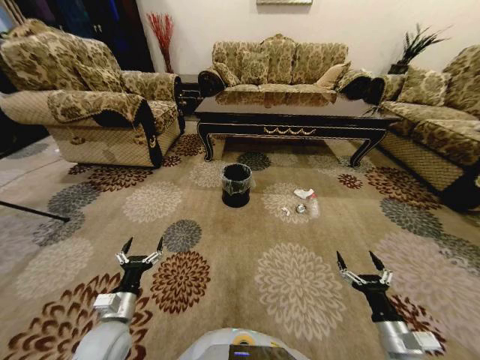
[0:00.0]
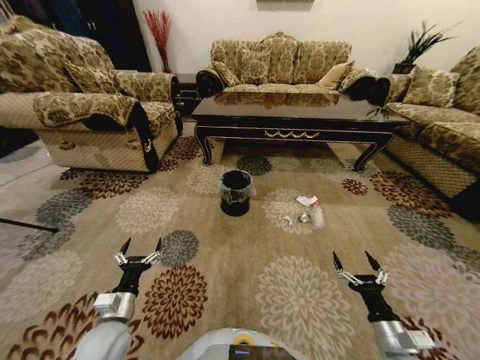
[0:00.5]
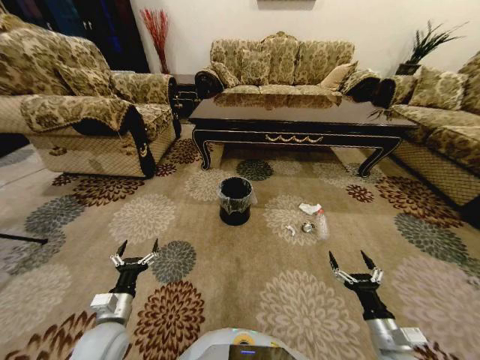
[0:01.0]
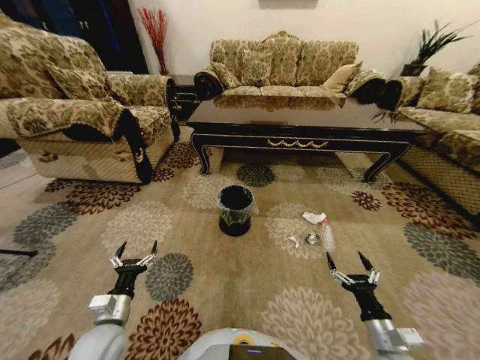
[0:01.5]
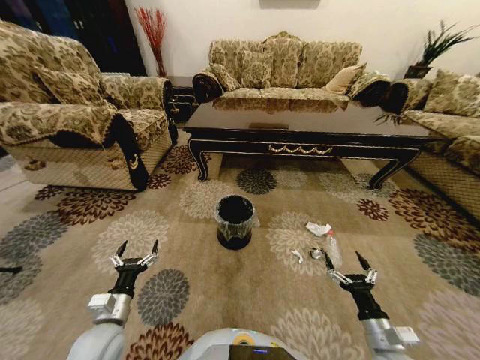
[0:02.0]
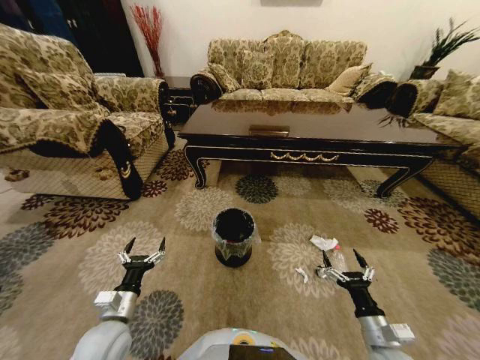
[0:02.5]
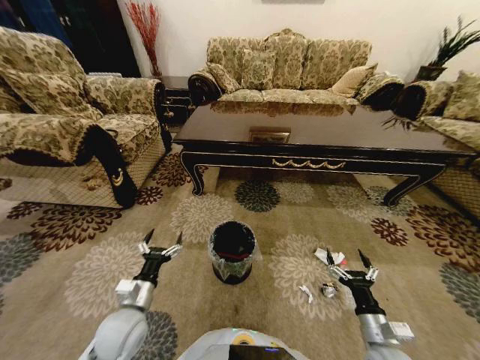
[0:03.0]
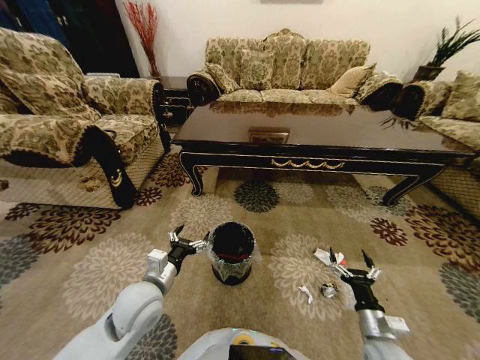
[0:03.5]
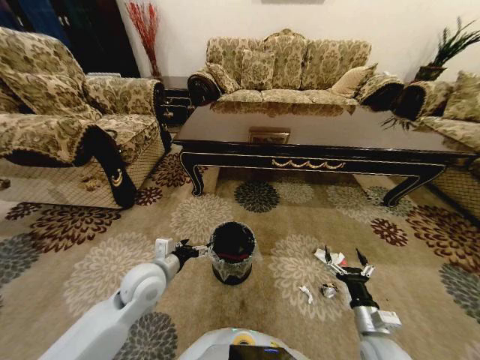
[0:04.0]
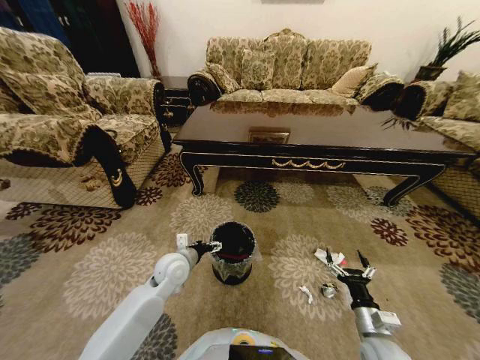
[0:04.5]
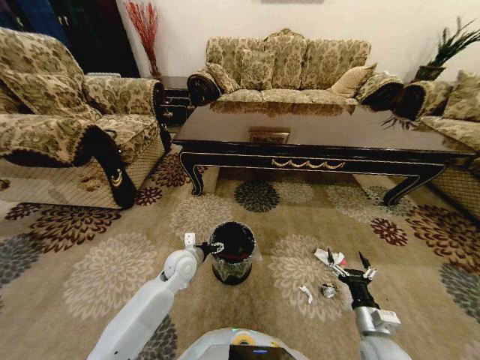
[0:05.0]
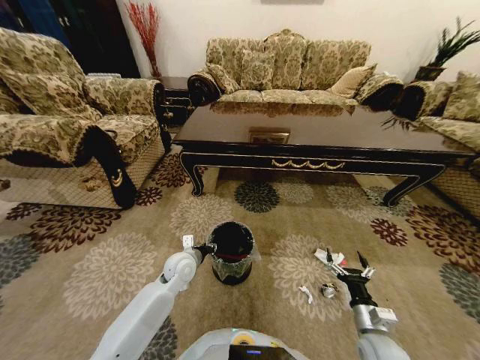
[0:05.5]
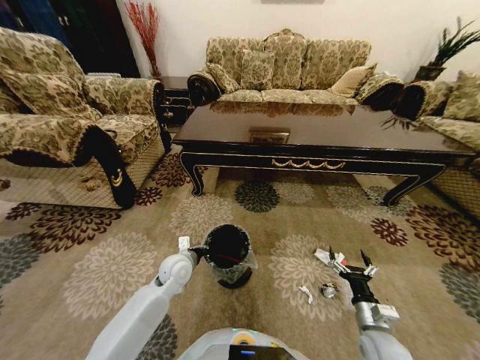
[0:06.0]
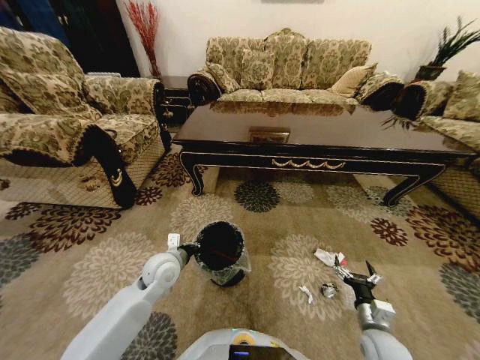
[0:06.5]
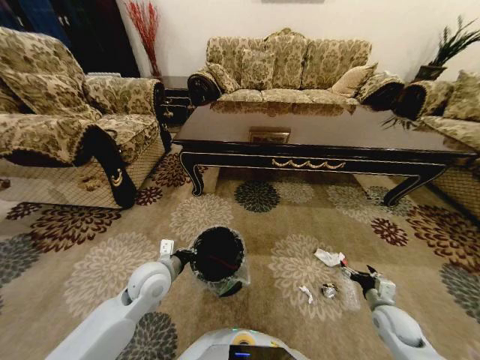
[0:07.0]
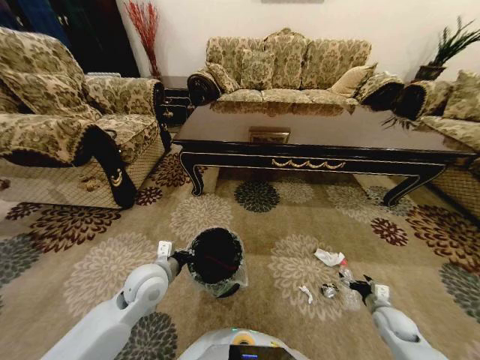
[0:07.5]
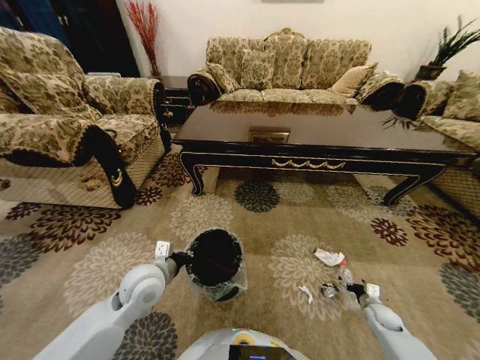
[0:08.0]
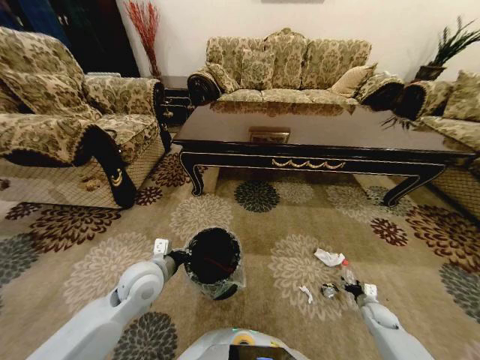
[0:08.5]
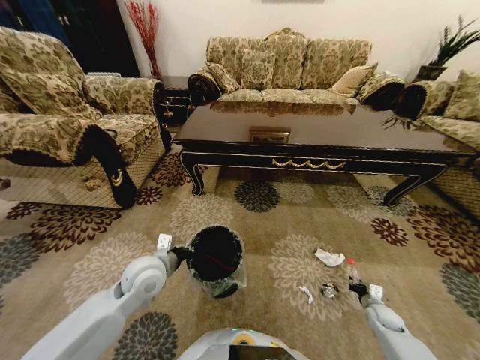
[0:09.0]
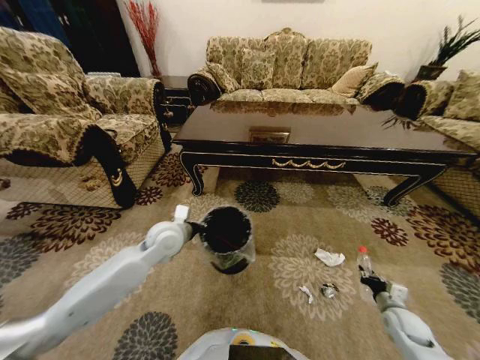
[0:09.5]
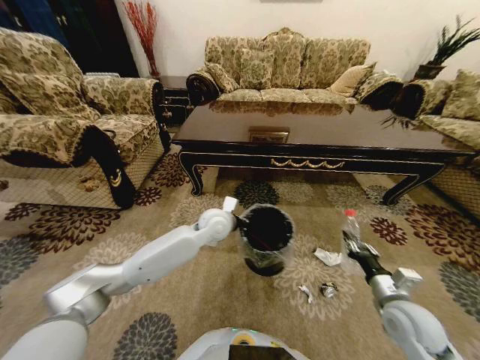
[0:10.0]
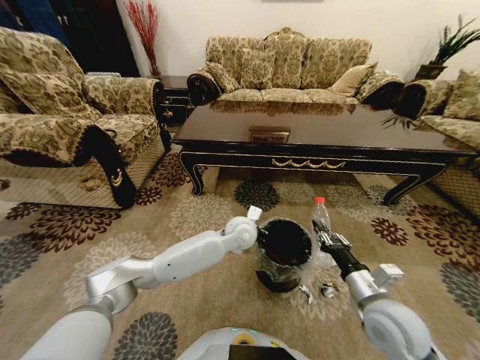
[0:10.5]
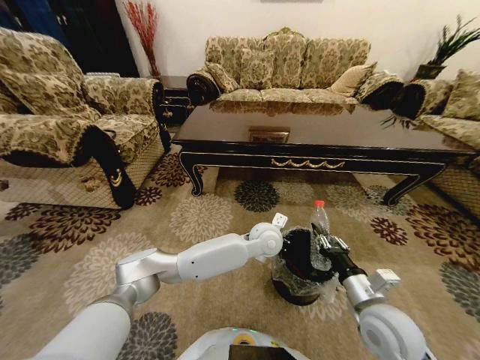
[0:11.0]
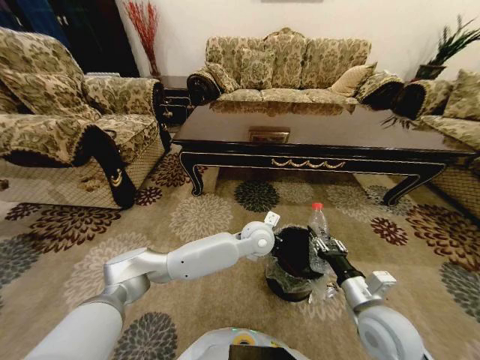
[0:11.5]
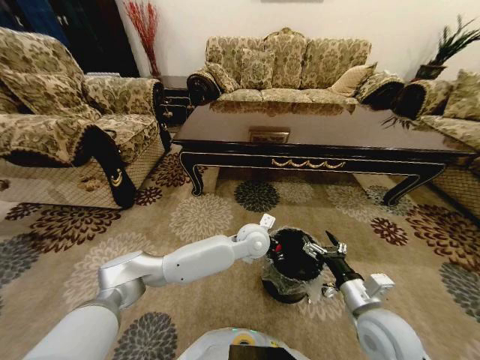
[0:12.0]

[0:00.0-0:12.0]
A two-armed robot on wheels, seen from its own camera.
Task of the whole recording: Move to the front of the table and pick up the trash from the floor, then place it into the trash bin.
2.0 to 4.0 s: The left gripper heads forward, upward and to the right, covering approximately 15 cm.
4.0 to 6.0 s: The left gripper shifts some 10 cm downward and forward, and closes up.
6.0 to 8.0 s: The left gripper shifts about 10 cm upward and backward, while the right gripper is displaced to the right, downward and forward by approximately 20 cm.
8.0 to 10.0 s: The left gripper is displaced forward and to the right by some 20 cm, while the right gripper heads upward and to the left, covering roughly 25 cm, and closes up.
10.0 to 12.0 s: The right gripper travels to the left by about 10 cm, and opens up, while the left gripper heads to the right, covering some 10 cm.

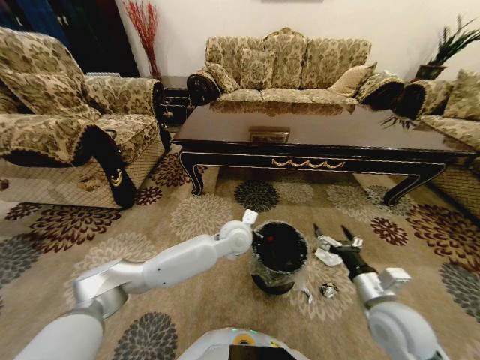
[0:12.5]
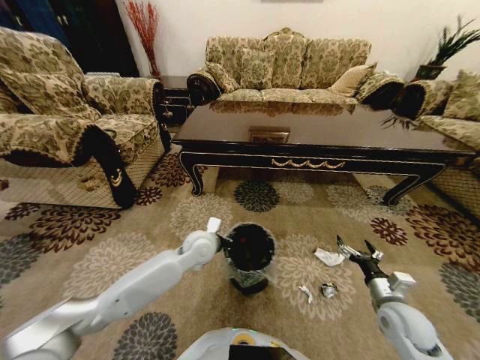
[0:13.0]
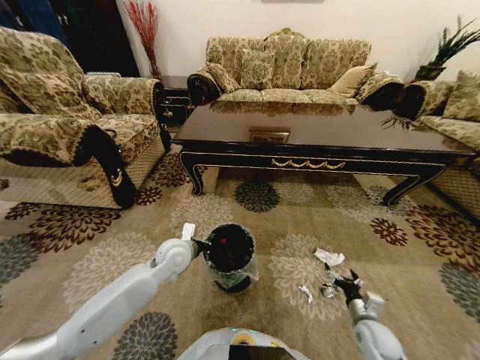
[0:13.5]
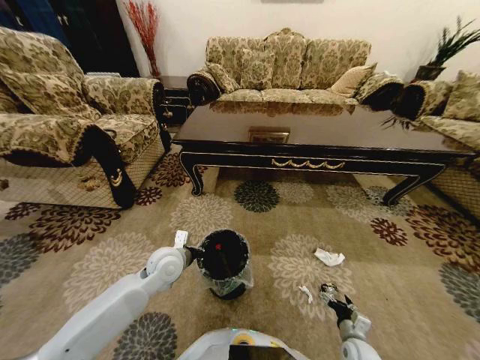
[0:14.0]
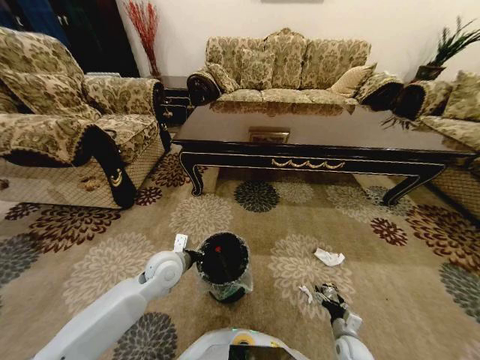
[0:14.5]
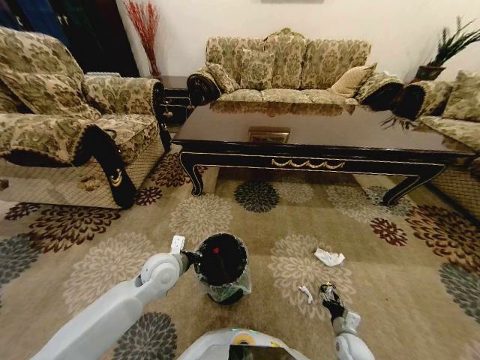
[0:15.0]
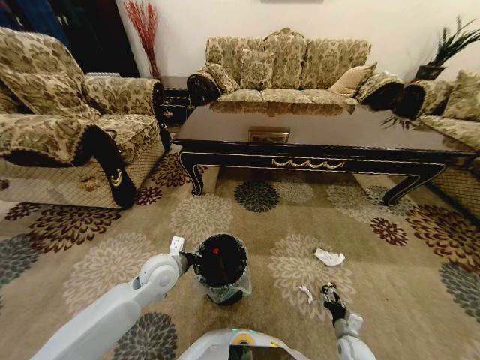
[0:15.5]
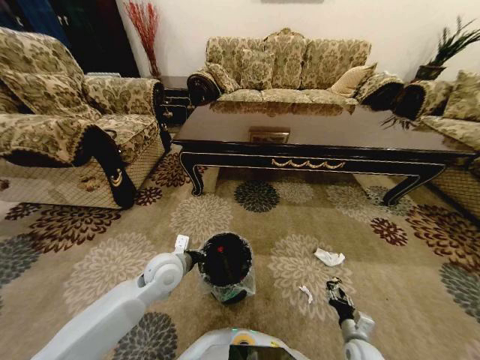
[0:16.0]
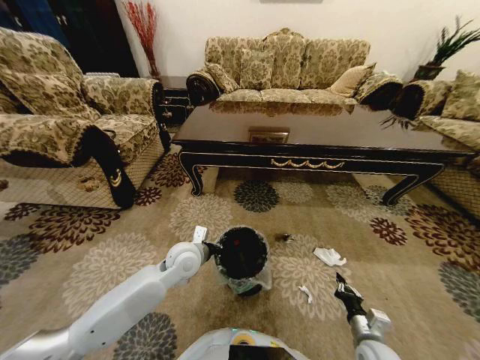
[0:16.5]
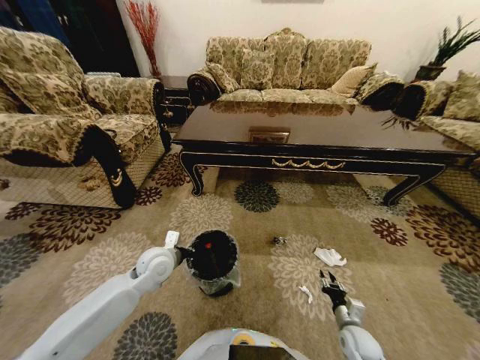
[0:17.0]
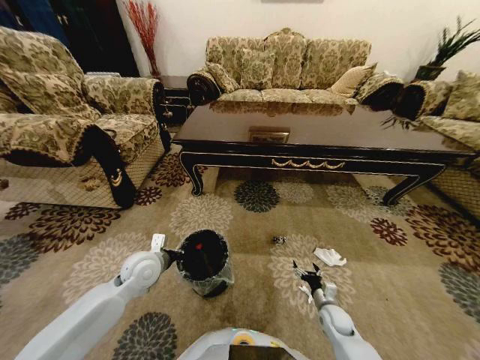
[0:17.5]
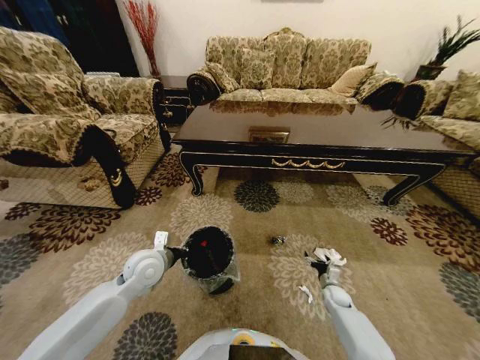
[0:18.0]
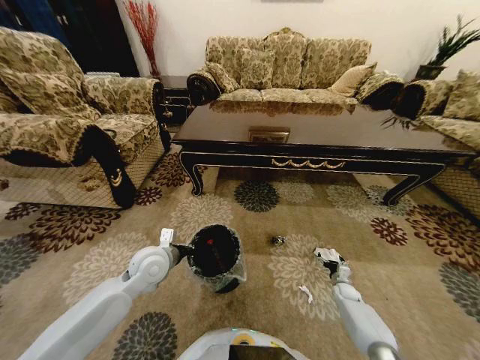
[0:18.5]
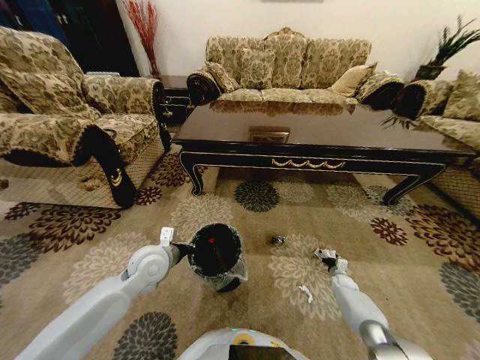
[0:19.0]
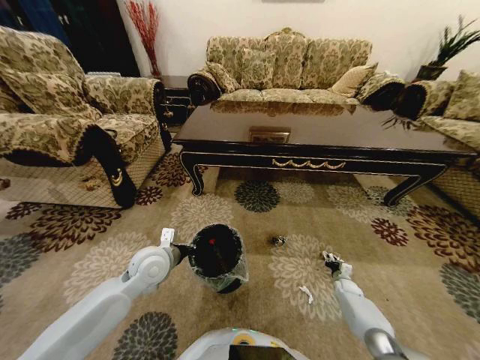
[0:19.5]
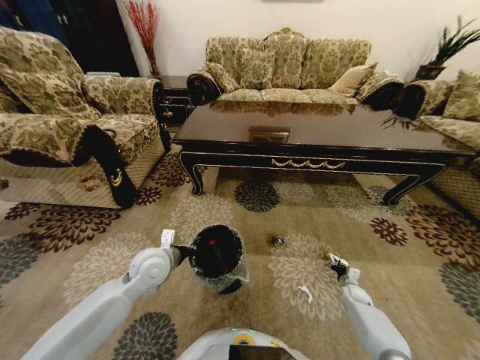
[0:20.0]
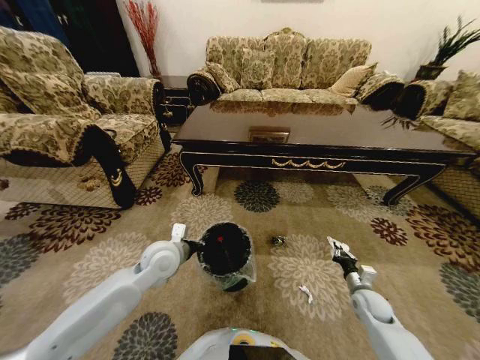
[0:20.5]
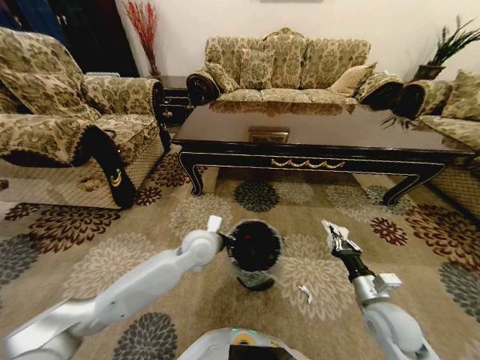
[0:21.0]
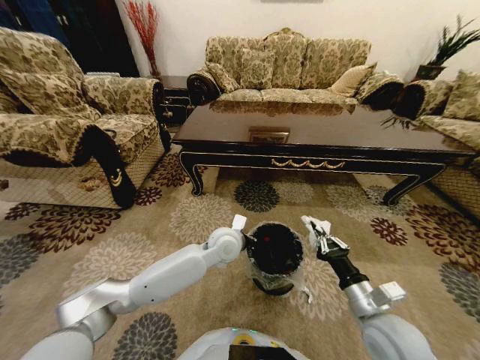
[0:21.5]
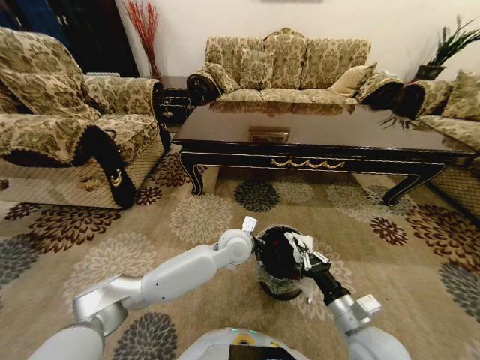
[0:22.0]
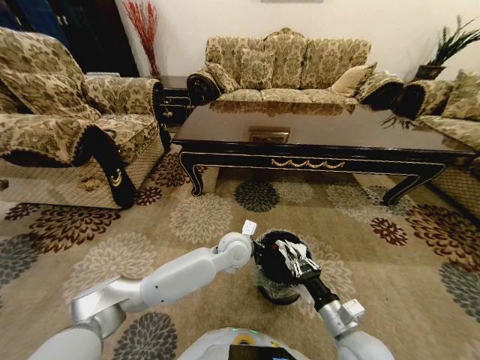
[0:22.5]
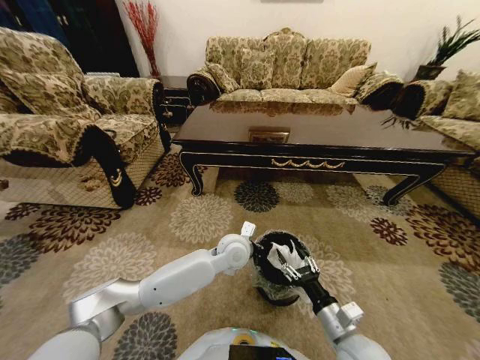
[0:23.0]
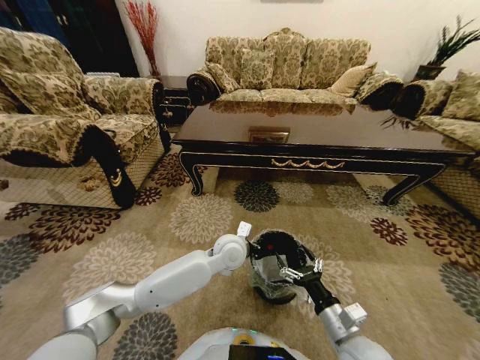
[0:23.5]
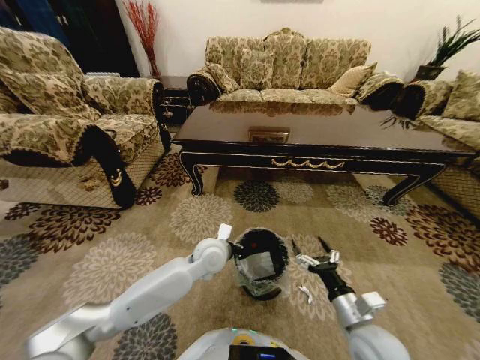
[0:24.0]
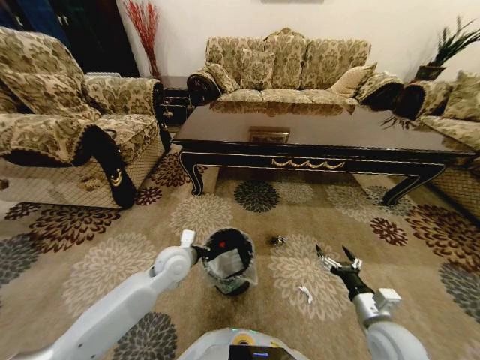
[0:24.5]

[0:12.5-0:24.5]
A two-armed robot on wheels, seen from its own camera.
Task of the whole recording: Move to the front of the table and pick up the trash from the floor, then place it into the trash bin.
12.5 to 14.5 s: The right gripper travels downward by approximately 30 cm, while the left gripper shifts about 20 cm to the left and backward.
14.5 to 16.5 s: The left gripper moves about 5 cm. Meanwhile the right gripper goes some 10 cm upward, and closes its fingers.
16.5 to 18.5 s: The left gripper shifts about 10 cm to the left. The right gripper travels forward, downward and to the right by about 25 cm, and opens its fingers.
18.5 to 20.5 s: The right gripper shifts about 15 cm upward and backward, and closes.
20.5 to 22.5 s: The left gripper travels to the right by approximately 20 cm; the right gripper travels to the left, backward and upward by roughly 25 cm.
22.5 to 24.5 s: The right gripper shifts some 10 cm to the right, and opens. The left gripper goes about 20 cm to the left.

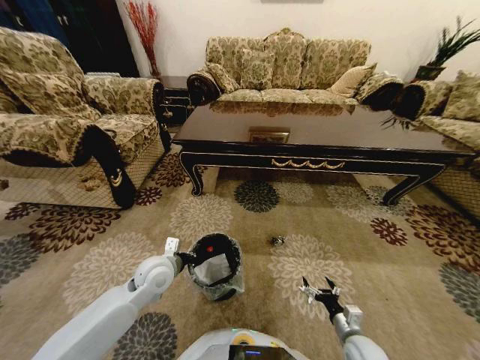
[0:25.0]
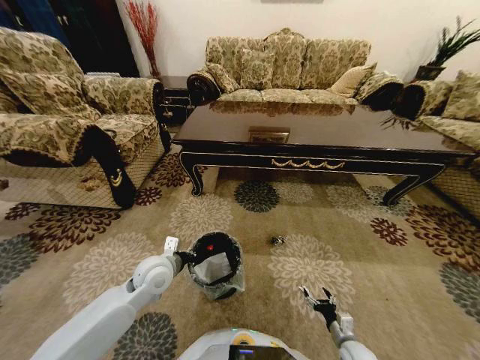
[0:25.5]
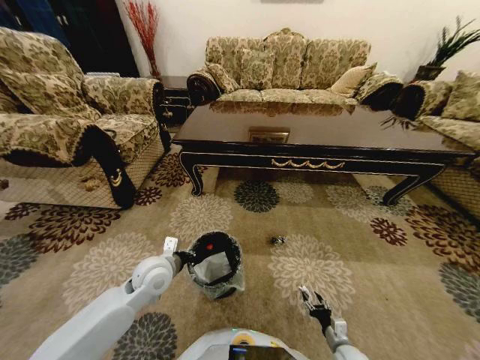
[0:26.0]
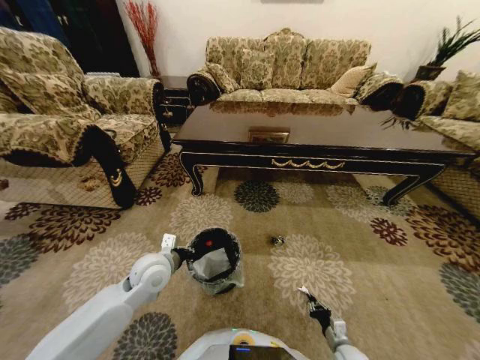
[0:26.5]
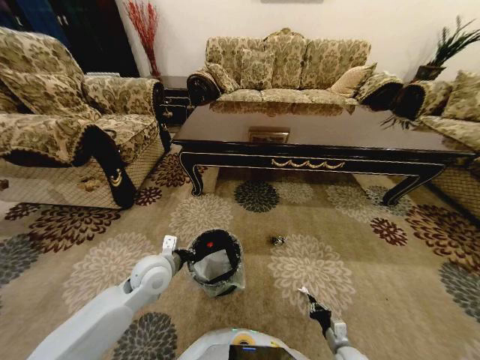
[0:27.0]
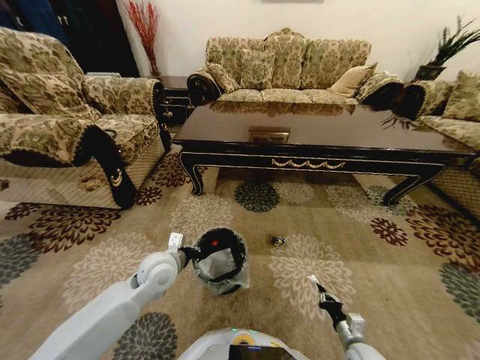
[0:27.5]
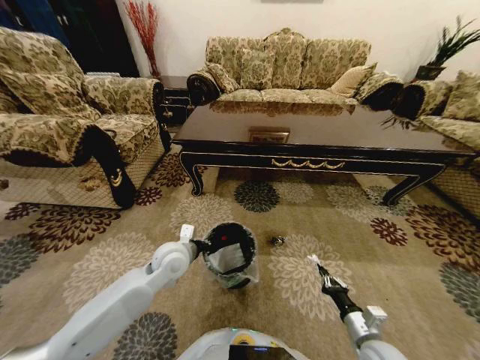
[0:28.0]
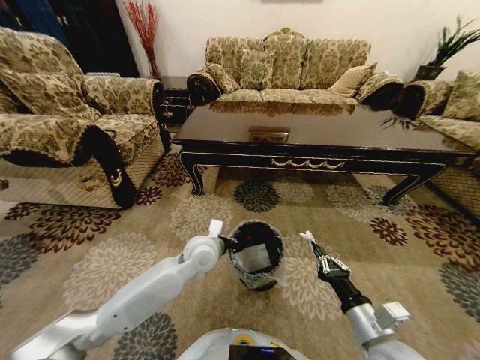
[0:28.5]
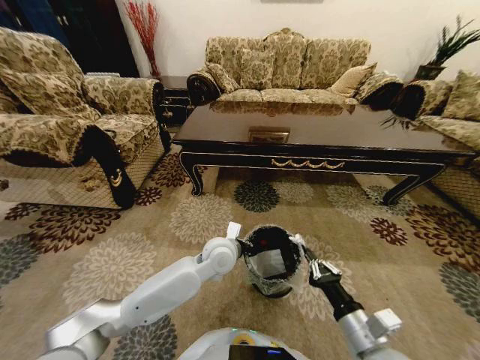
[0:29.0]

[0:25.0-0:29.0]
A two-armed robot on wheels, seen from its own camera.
Task of the whole recording: Move to the front of the table and pick up the trash from the floor, then place it into the trash bin.
25.0 to 27.0 s: The right gripper is displaced downward by approximately 10 cm, and closes.
27.0 to 29.0 s: The right gripper travels upward by about 30 cm; the left gripper travels to the right by approximately 15 cm.
